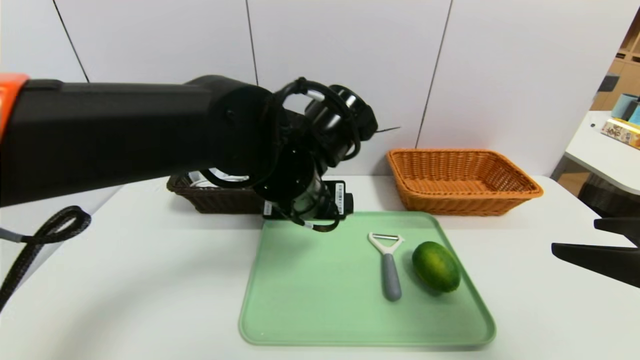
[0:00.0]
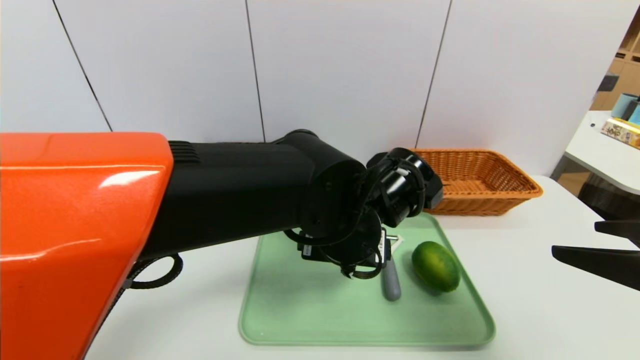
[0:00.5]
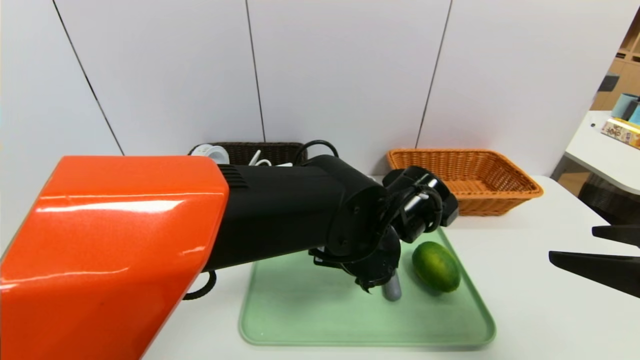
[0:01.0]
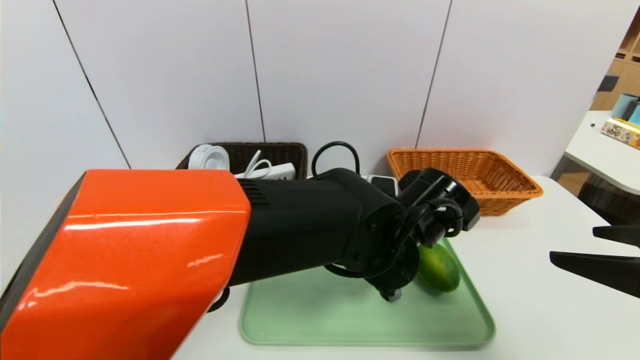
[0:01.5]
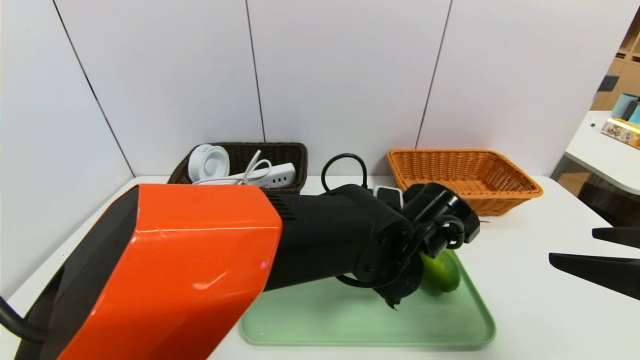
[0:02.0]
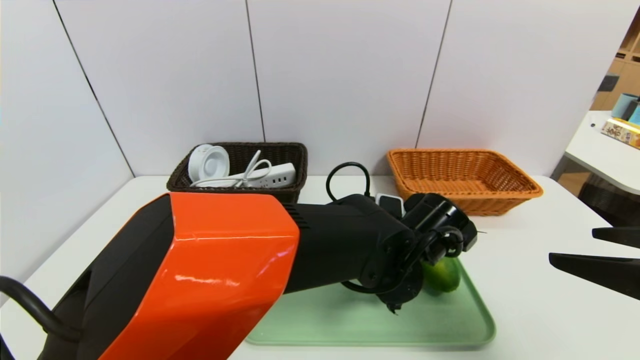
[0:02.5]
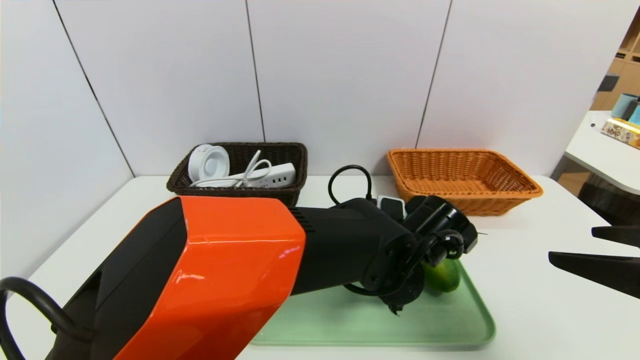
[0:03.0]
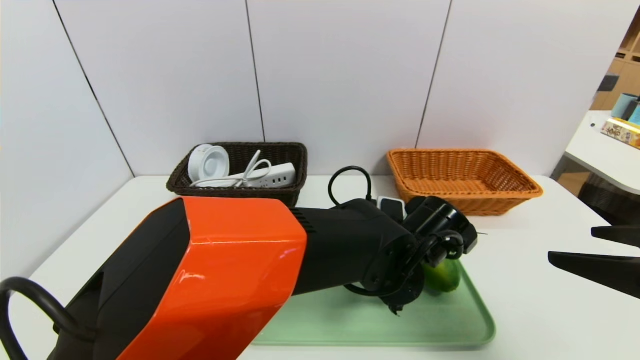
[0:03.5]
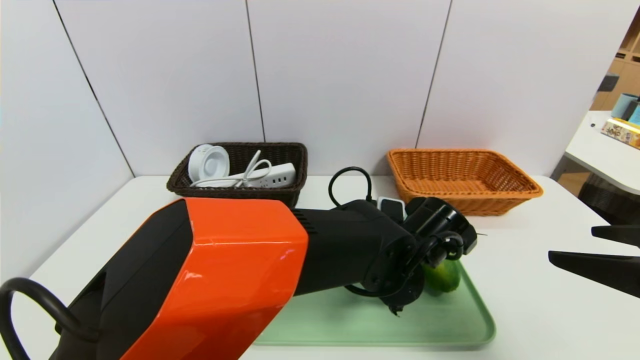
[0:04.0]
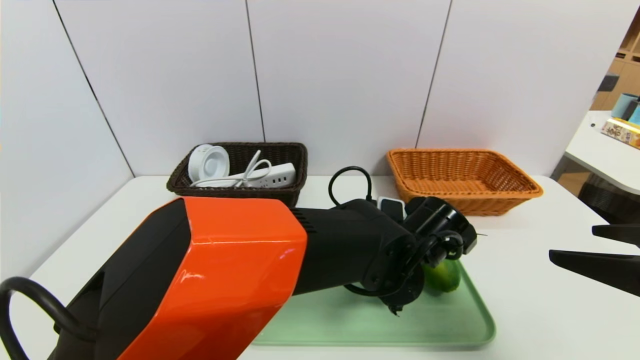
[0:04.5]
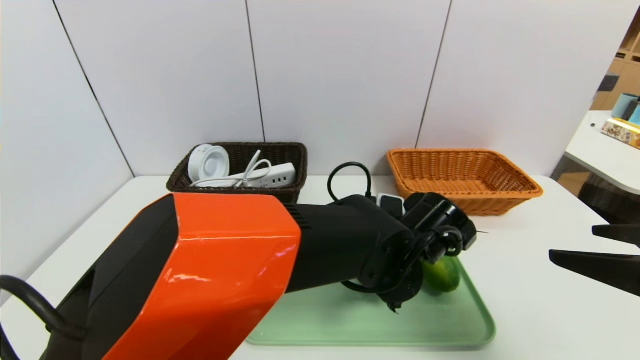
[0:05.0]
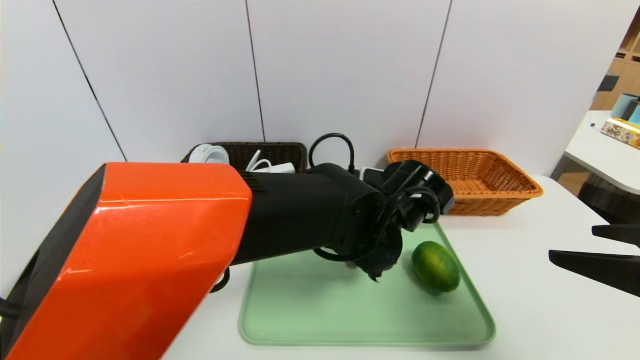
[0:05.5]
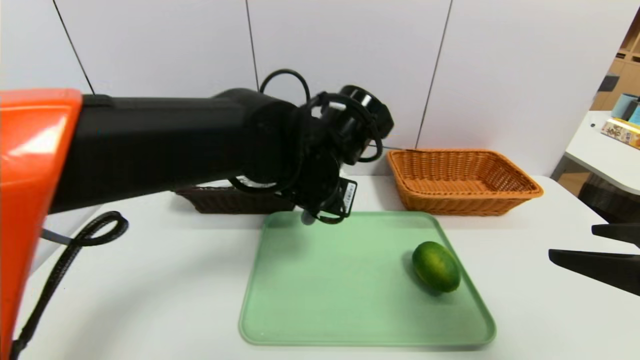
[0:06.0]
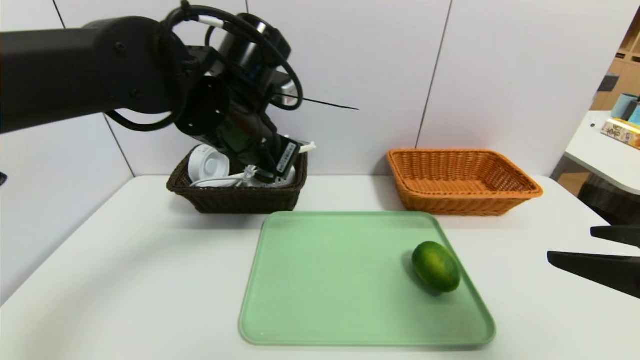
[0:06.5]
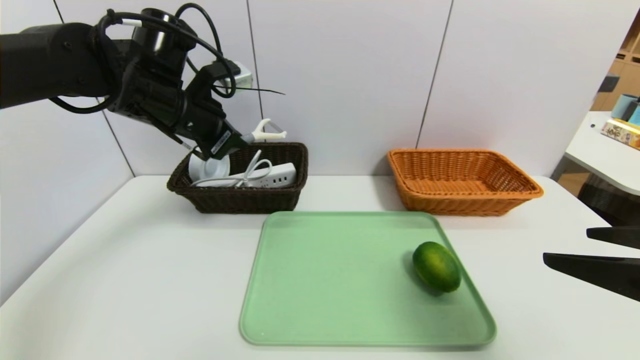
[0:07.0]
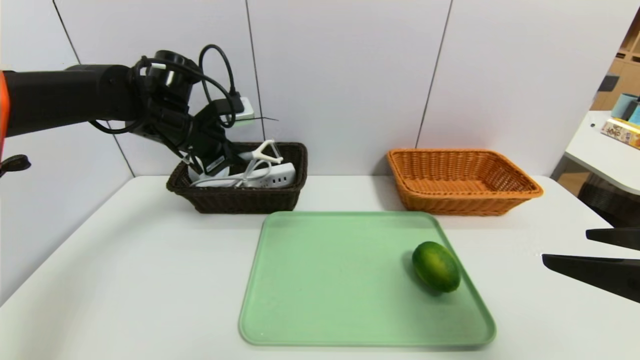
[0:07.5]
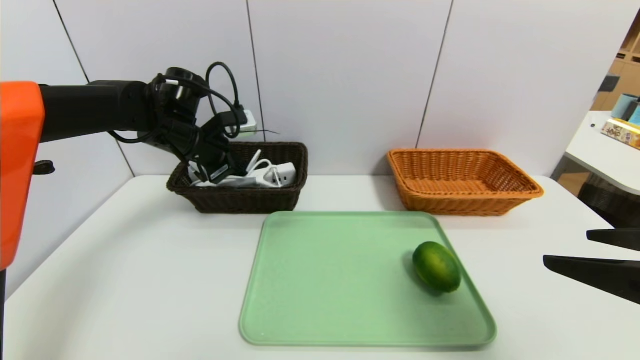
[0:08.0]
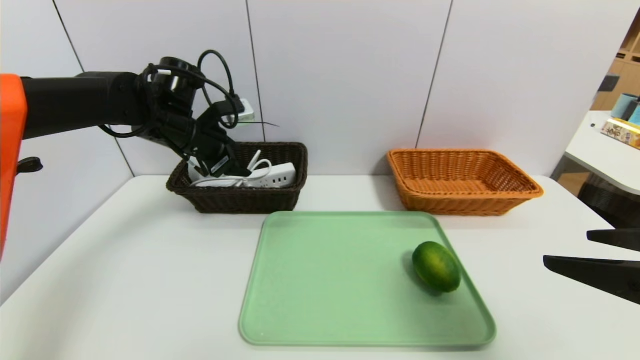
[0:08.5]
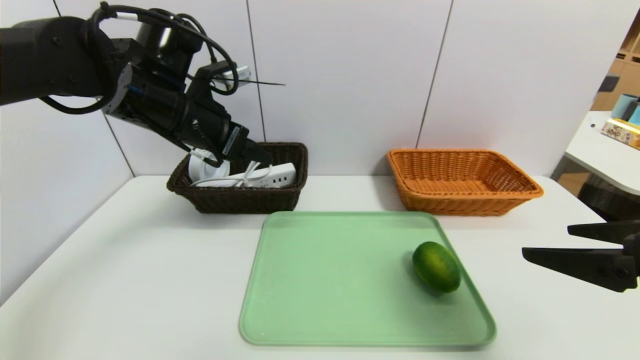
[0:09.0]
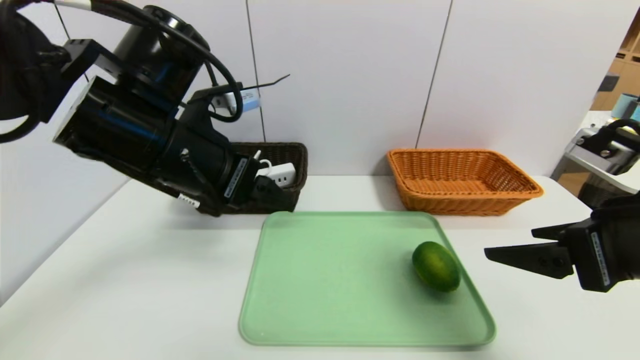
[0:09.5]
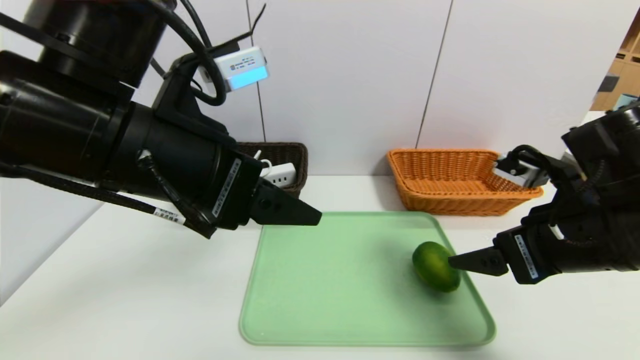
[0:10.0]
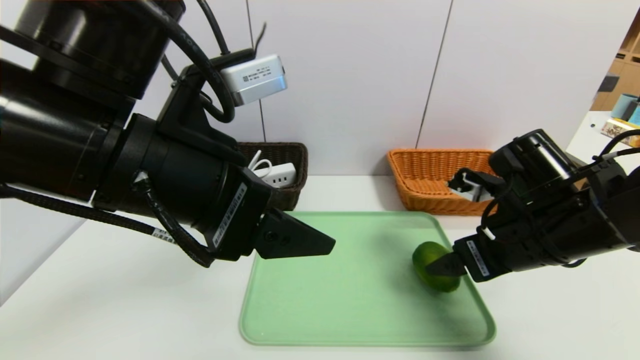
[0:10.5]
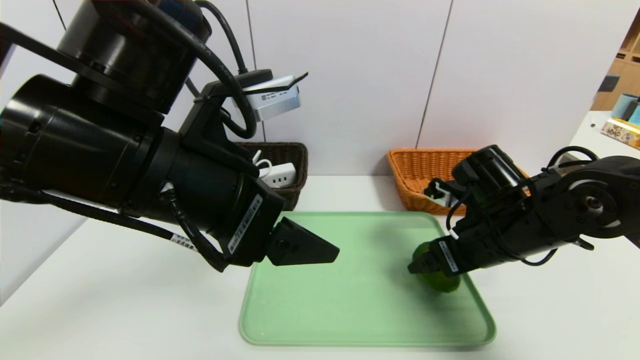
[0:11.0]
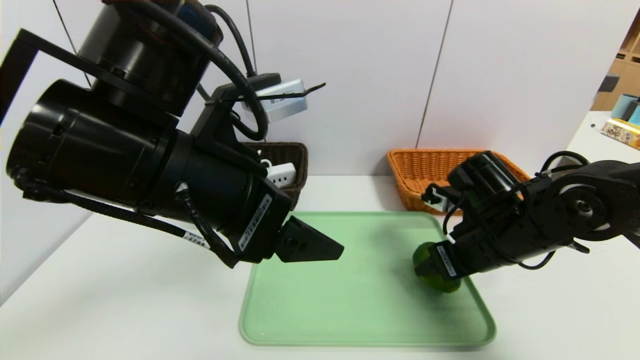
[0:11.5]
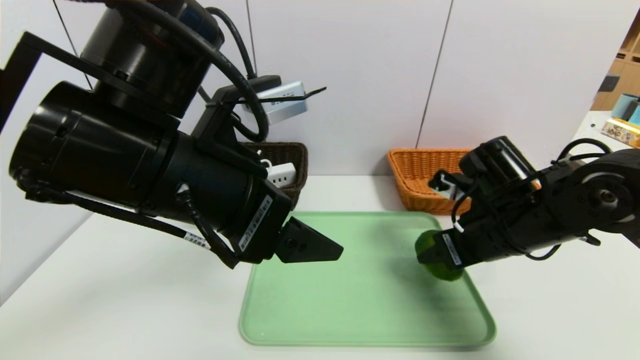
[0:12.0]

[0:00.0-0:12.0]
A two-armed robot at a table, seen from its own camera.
Task of the whole recording: place the food in the right basket with the right gripper, and place the non food items in the left basket with the left gripper.
Step, 0:00.0 to 0:08.5: Grasp the peeler and put it in the left basket.
0:00.0 to 0:02.0: The left gripper is displaced to the right and downward by some 15 cm.
0:02.0 to 0:04.0: There are only small adjustments of the grippers.
0:04.0 to 0:06.0: The left gripper moves upward and to the left, approximately 15 cm, and closes.
0:06.0 to 0:08.0: The left gripper is displaced to the left and forward by roughly 25 cm.
0:08.0 to 0:10.0: The left gripper shifts approximately 25 cm backward and upward, and opens its fingers; the right gripper heads forward, covering some 10 cm.
0:10.0 to 0:12.0: The right gripper heads forward, covering approximately 5 cm, and closes up.

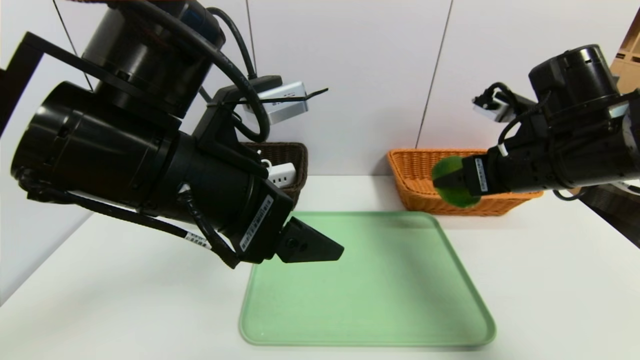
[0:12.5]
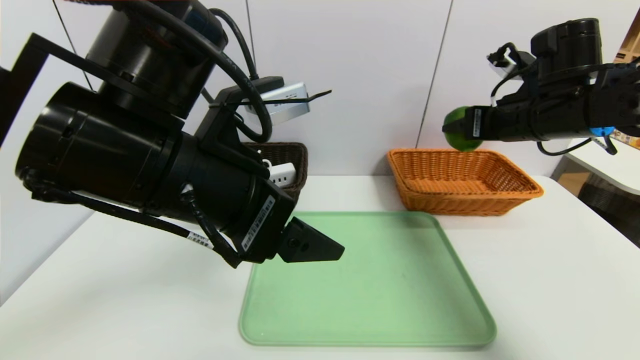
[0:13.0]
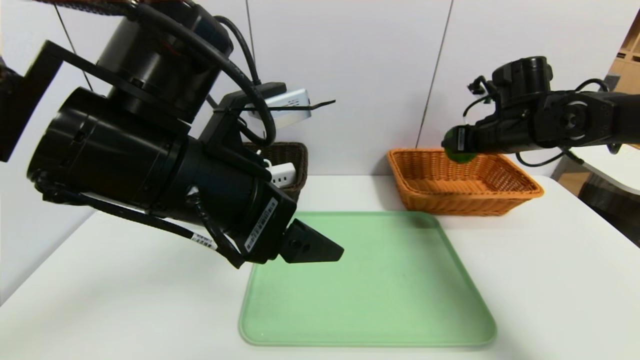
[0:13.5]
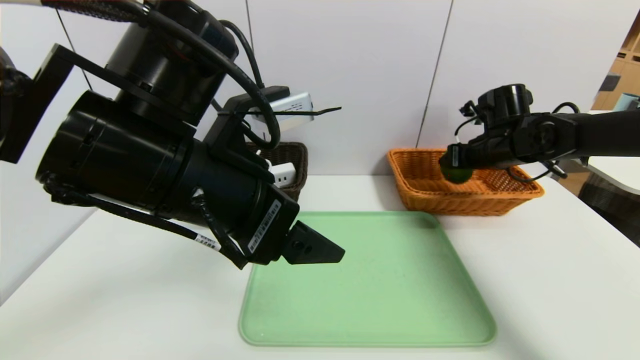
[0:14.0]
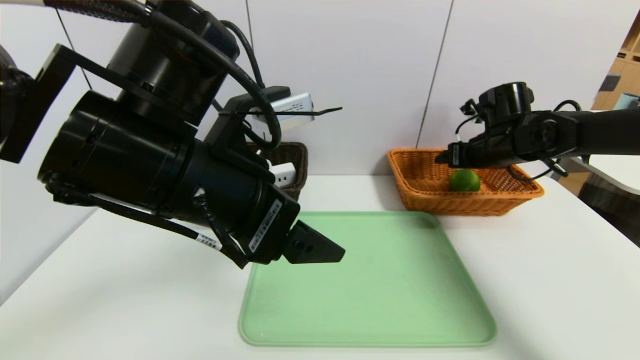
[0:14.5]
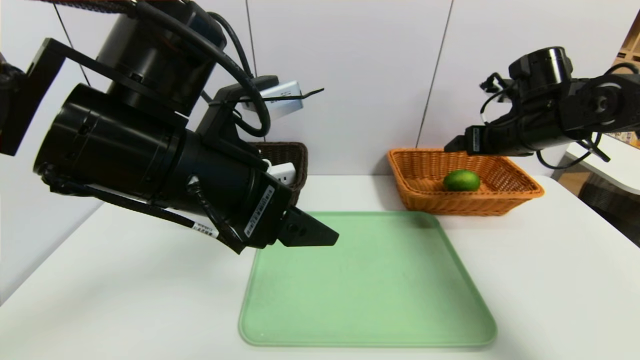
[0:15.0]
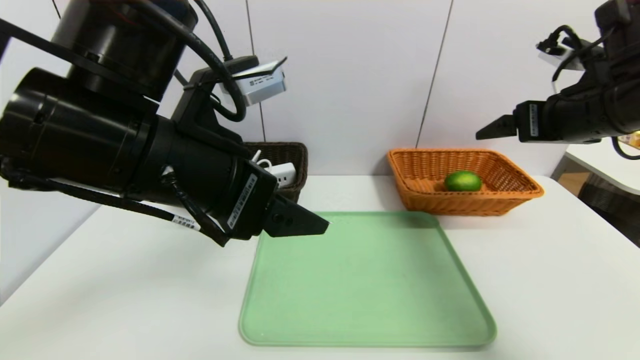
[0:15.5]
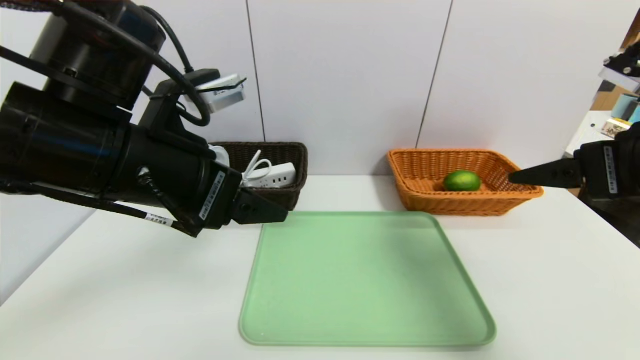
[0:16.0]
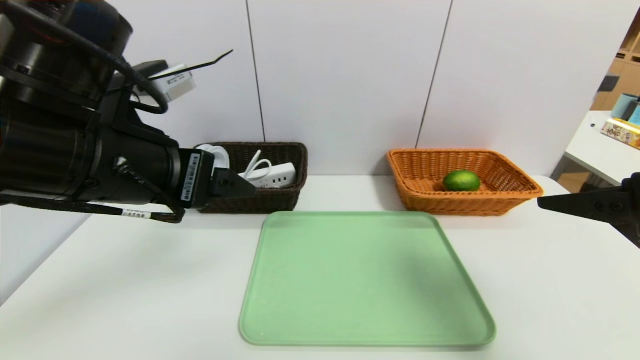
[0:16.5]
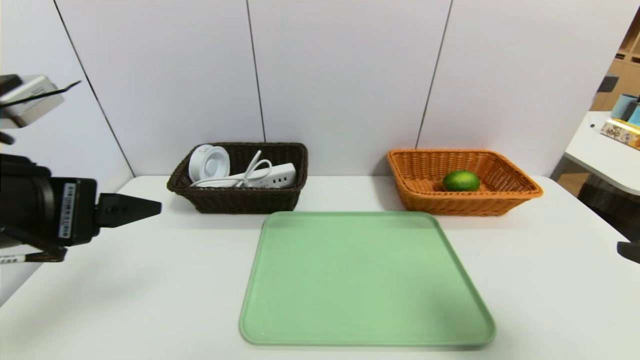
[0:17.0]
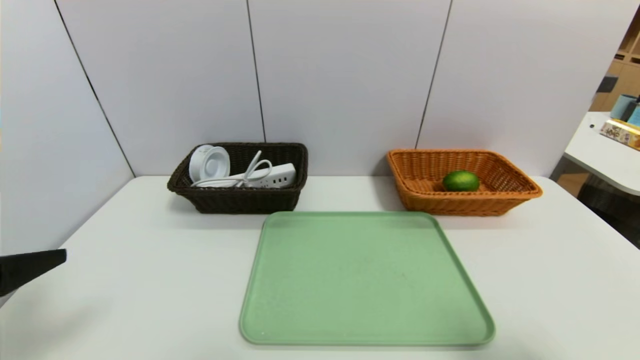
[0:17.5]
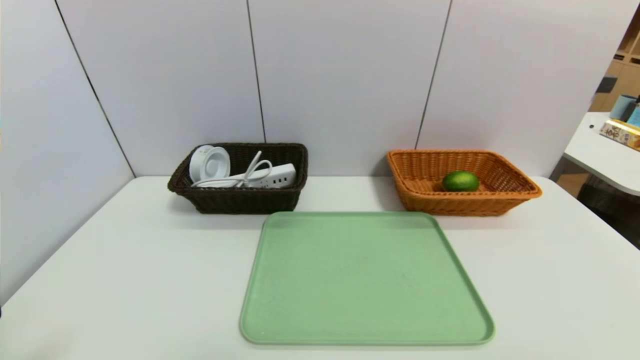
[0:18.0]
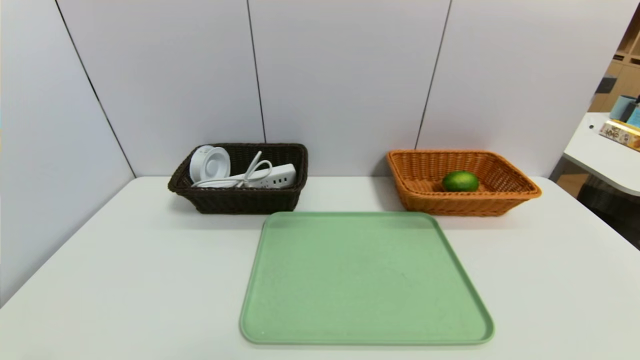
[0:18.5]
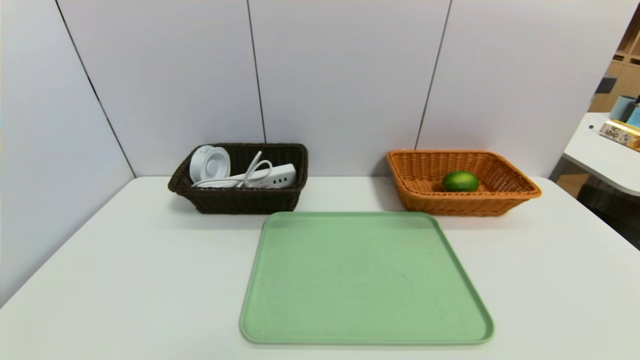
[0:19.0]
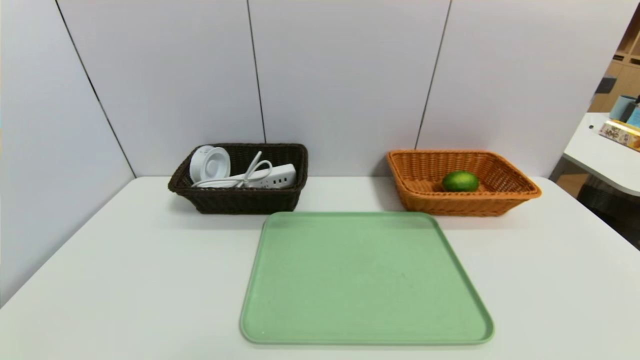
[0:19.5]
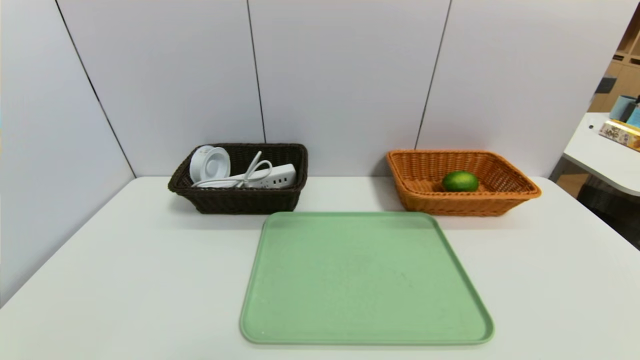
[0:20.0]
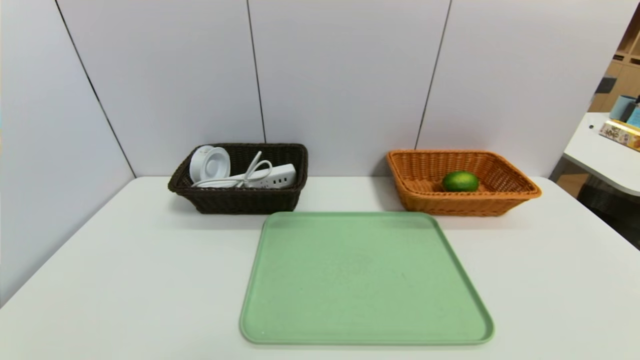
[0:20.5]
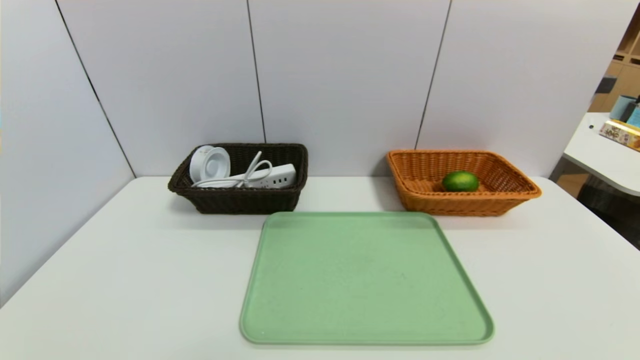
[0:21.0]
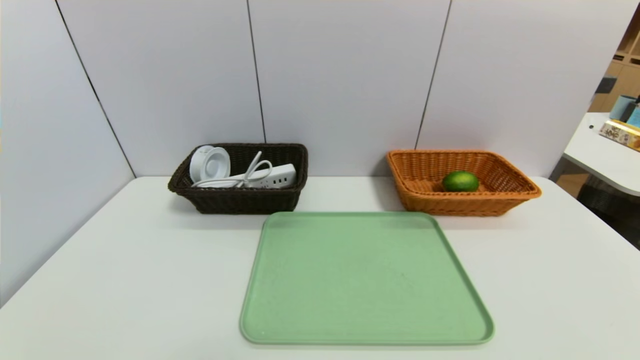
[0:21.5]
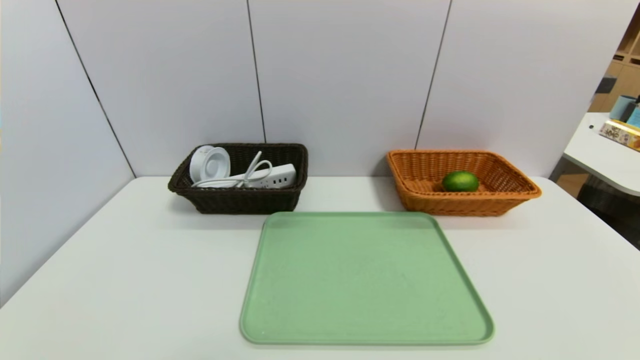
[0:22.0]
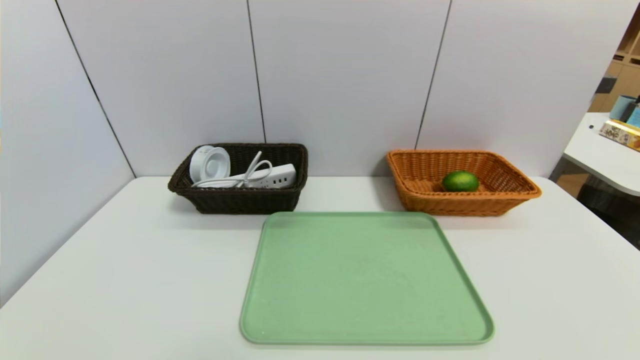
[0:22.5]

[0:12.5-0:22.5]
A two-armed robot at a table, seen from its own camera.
Task of the whole recording: place the food in the right basket with the right gripper, and place the non food items in the left basket with the left gripper.
Step, 0:12.5 to 0:14.5: Grasp the green lemon and put it in the right basket.
0:12.5 to 0:14.5: The right gripper goes about 15 cm forward and downward, and opens its fingers.
0:14.5 to 0:16.5: The left gripper is displaced to the left by some 5 cm. Meanwhile the right gripper heads backward, covering about 30 cm.
0:16.5 to 0:18.5: The right gripper travels backward by about 20 cm; the left gripper goes roughly 25 cm backward and to the left.
